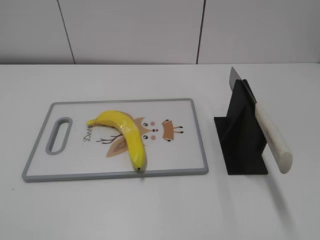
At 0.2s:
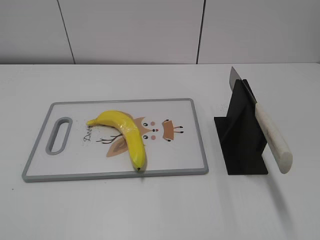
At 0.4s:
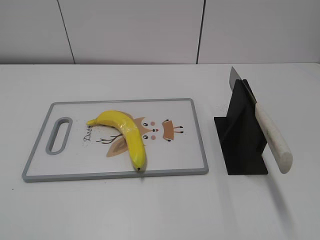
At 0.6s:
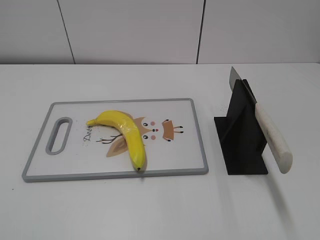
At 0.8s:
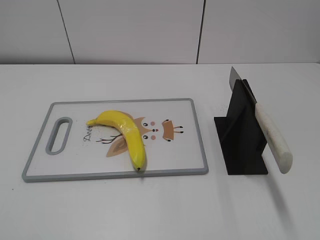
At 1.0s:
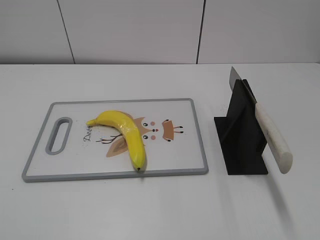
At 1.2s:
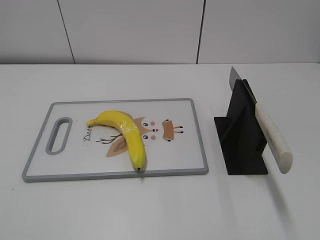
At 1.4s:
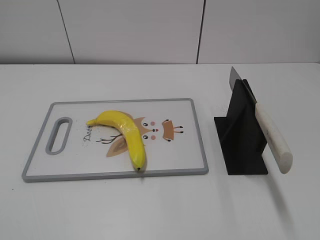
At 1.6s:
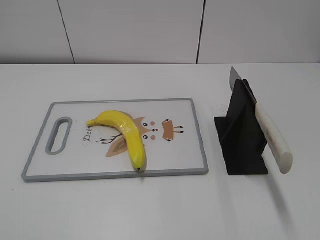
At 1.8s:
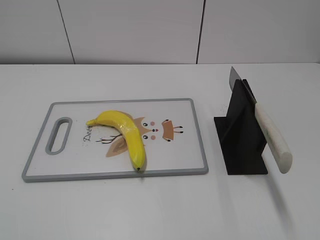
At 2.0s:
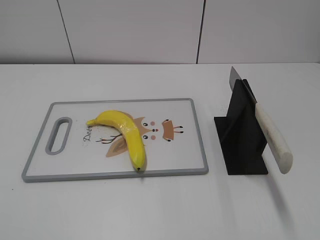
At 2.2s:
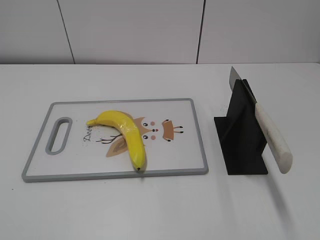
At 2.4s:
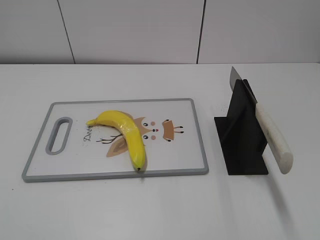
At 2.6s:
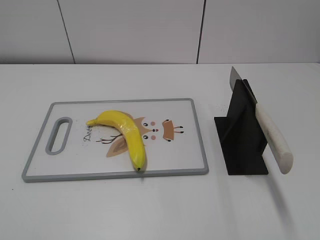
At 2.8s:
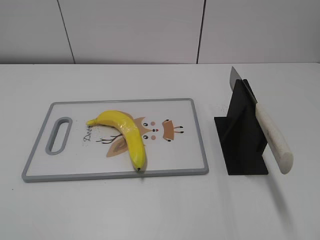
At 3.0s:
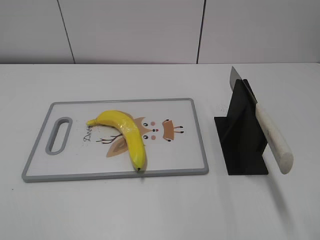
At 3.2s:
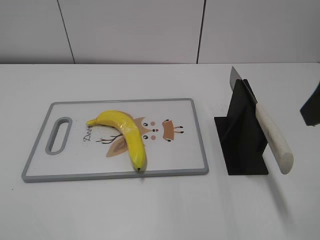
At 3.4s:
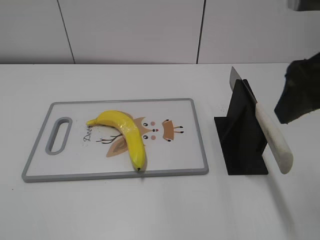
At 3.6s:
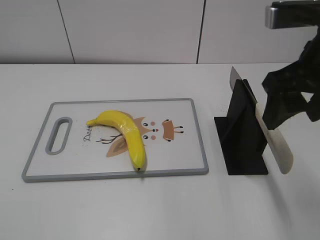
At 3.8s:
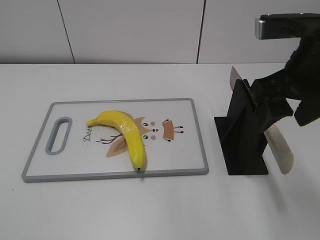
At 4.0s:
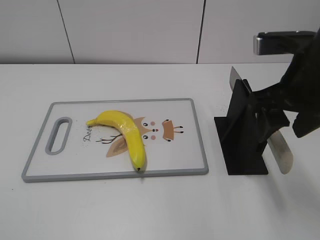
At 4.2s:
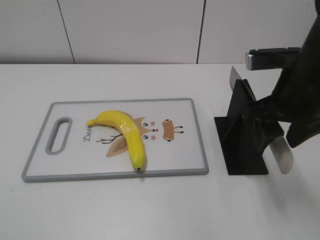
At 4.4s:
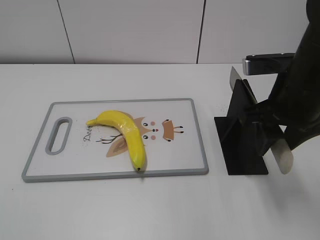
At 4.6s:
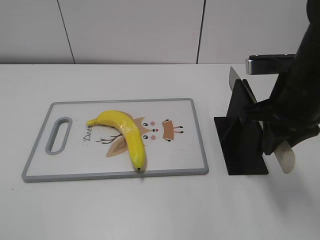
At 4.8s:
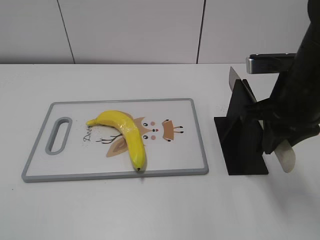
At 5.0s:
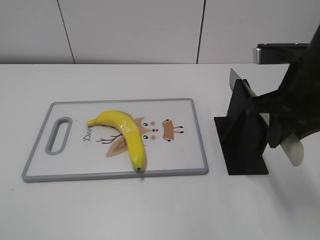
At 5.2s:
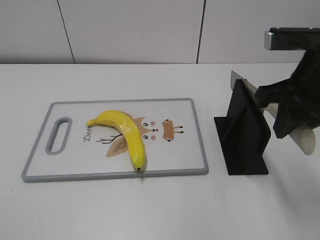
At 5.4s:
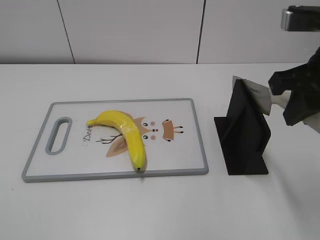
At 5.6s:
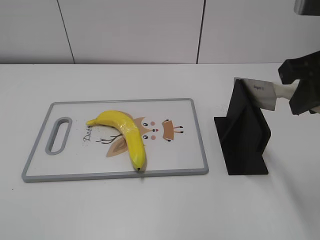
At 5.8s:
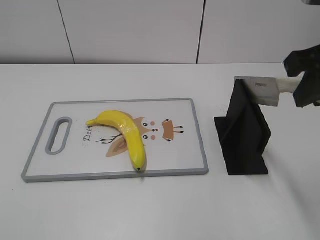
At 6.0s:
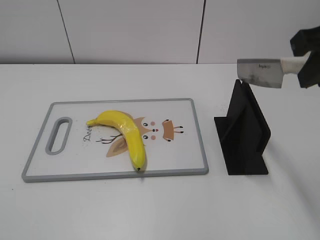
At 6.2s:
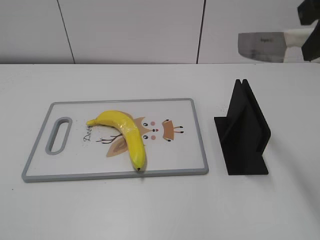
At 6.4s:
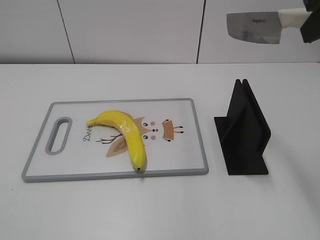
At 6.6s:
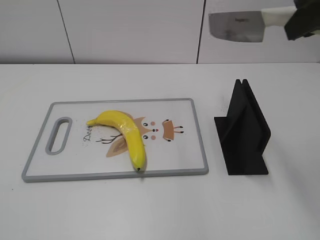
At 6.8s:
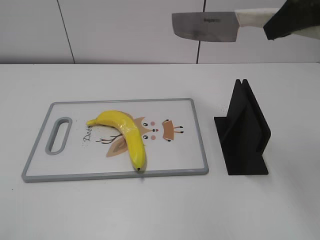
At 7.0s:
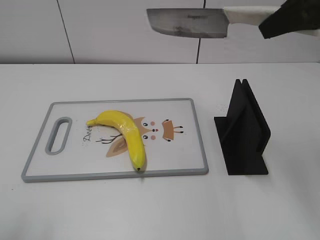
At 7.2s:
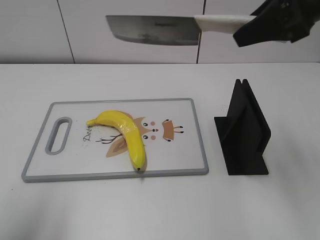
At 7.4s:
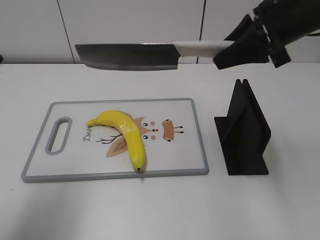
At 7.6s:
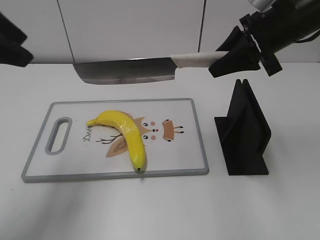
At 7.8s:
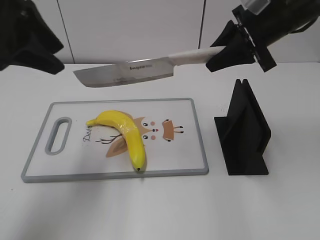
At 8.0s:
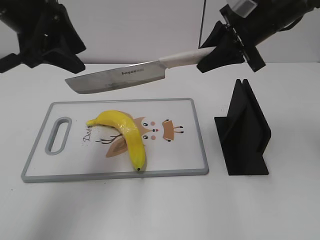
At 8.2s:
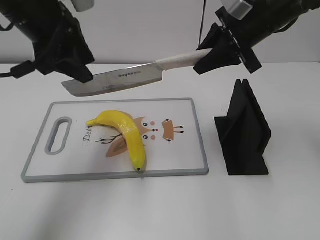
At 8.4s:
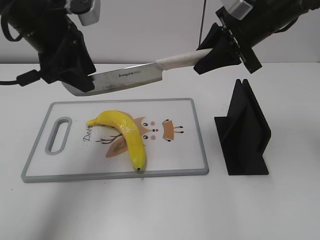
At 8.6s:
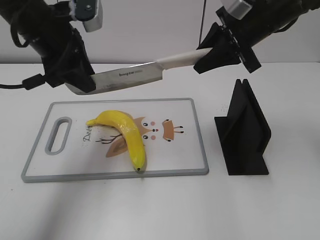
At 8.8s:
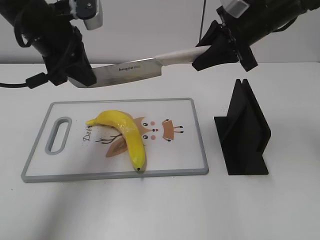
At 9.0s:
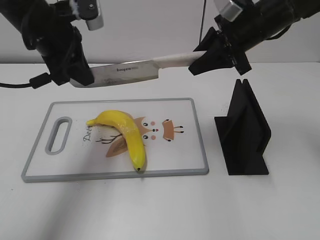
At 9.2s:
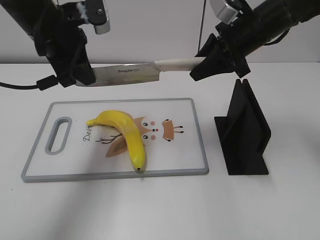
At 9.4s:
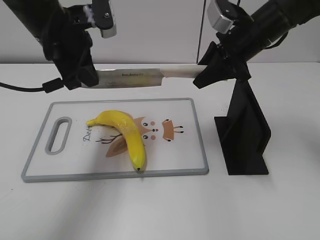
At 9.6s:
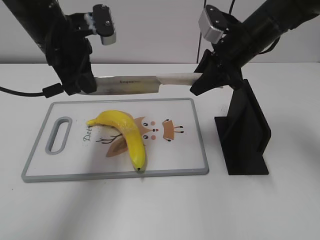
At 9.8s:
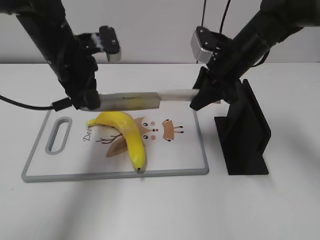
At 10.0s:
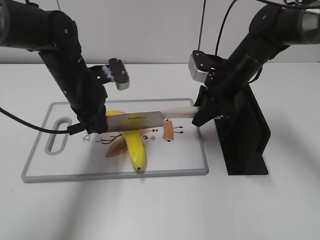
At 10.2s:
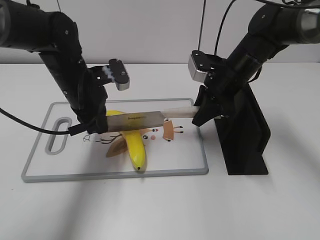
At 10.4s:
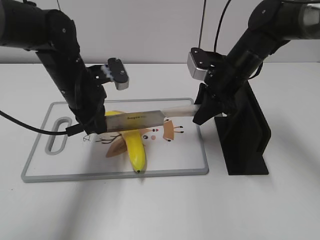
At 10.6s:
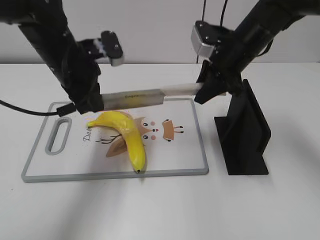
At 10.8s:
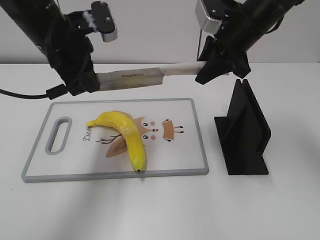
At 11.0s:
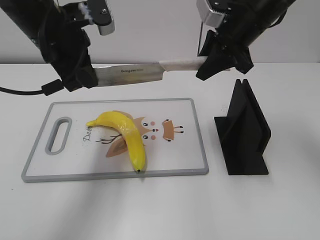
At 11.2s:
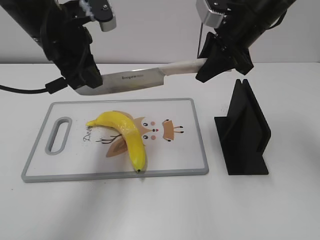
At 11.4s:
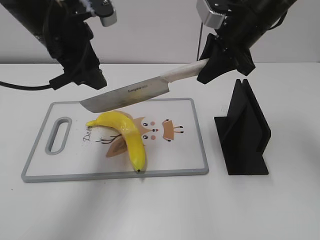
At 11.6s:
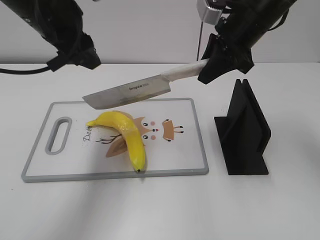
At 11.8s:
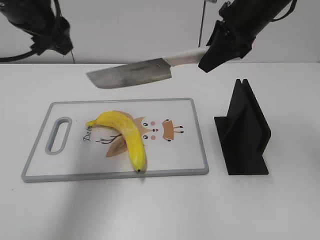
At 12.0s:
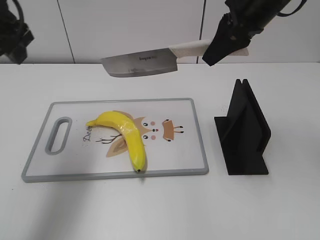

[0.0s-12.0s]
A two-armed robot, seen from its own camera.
Task of the whole recording: cut plastic banana.
Step, 0.0s to 5.4s: Grab the knife handle with your right hand.
Step, 5.8s to 10.8s: Lift the knife with your right hand.
3.0s to 4.4s: The right gripper travels downward, forward and to the left by some 15 cm, and closes up.
4.4s to 6.0s: The right gripper goes roughly 10 cm upward, and closes.
6.0s to 7.6s: The right gripper shifts some 15 cm forward and downward, while the left gripper travels forward by approximately 25 cm.
7.6s to 9.0s: The right gripper ends up approximately 5 cm from where it was; the left gripper shifts some 15 cm forward, downward and to the right, and closes.
9.0s to 10.4s: The grippers both shift downward by approximately 10 cm.
10.4s to 12.0s: The right gripper goes approximately 15 cm upward; the left gripper goes roughly 20 cm upward and to the left, and opens up.

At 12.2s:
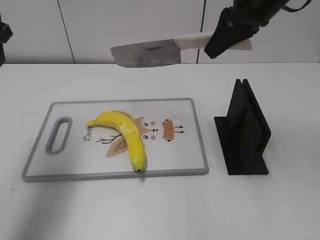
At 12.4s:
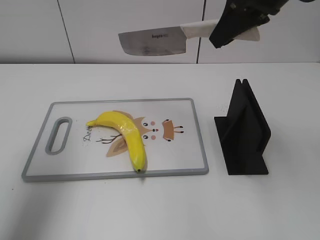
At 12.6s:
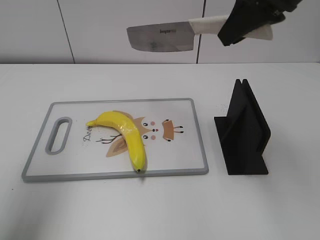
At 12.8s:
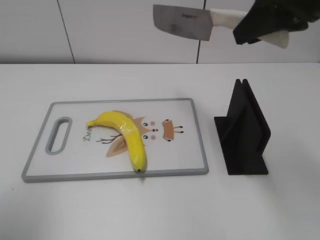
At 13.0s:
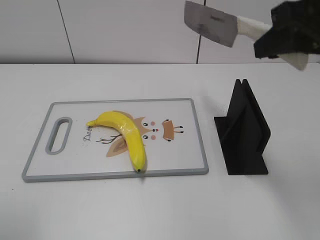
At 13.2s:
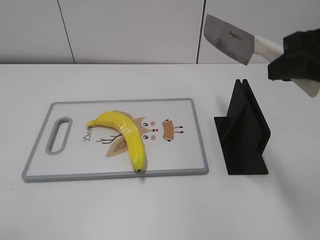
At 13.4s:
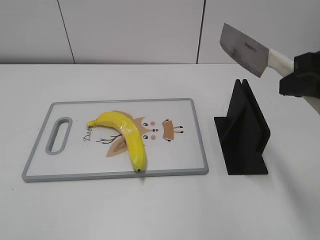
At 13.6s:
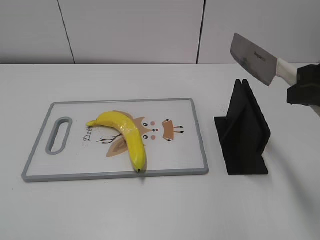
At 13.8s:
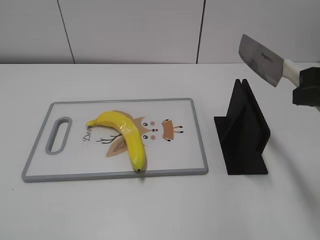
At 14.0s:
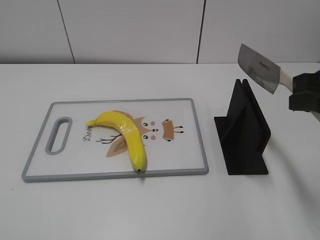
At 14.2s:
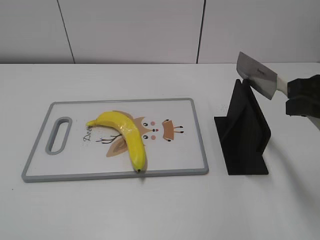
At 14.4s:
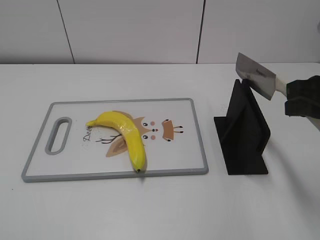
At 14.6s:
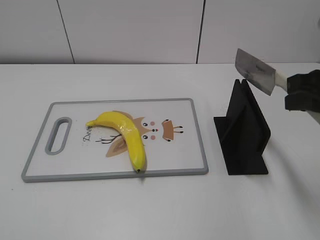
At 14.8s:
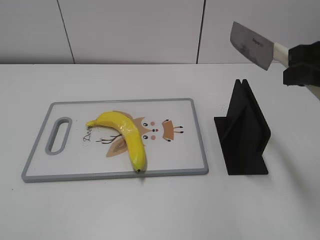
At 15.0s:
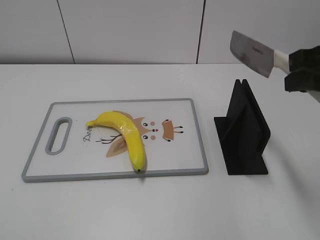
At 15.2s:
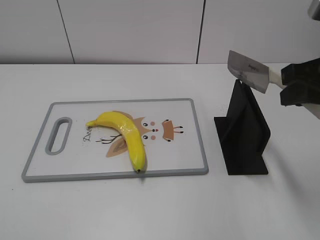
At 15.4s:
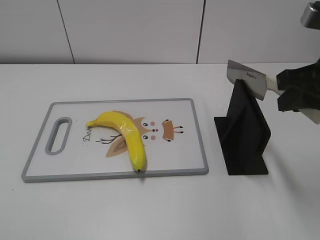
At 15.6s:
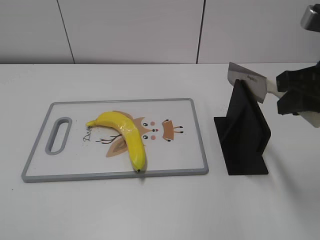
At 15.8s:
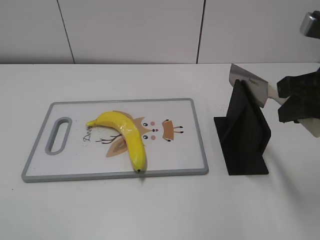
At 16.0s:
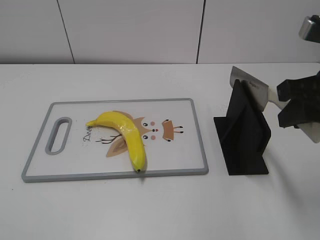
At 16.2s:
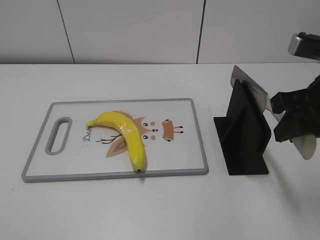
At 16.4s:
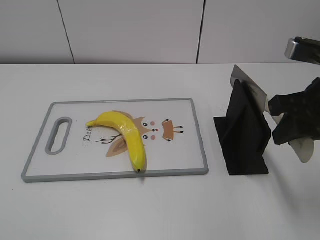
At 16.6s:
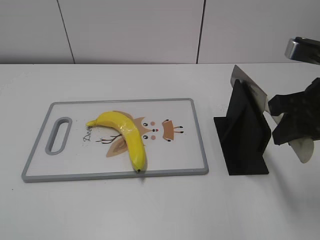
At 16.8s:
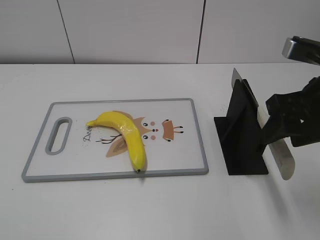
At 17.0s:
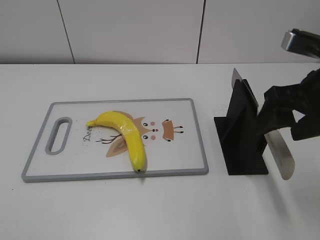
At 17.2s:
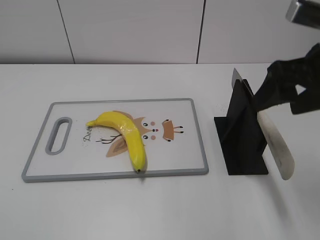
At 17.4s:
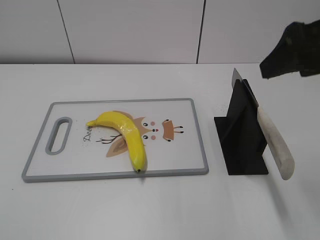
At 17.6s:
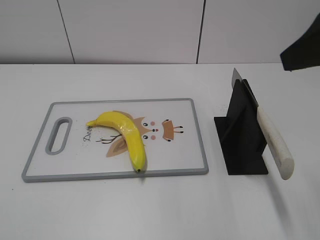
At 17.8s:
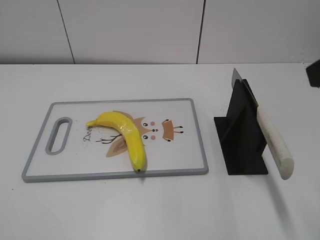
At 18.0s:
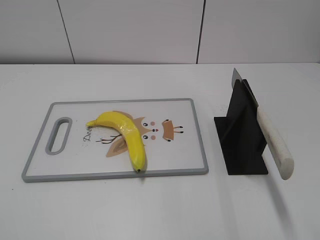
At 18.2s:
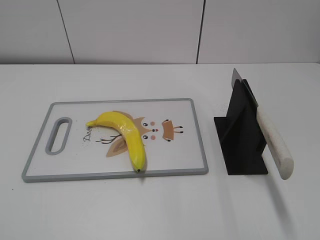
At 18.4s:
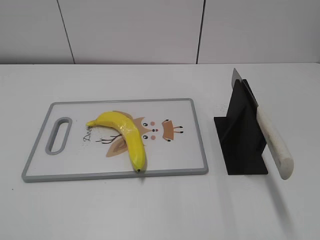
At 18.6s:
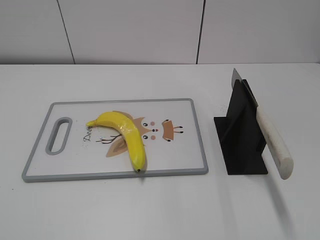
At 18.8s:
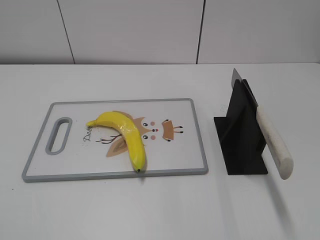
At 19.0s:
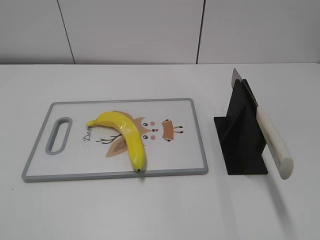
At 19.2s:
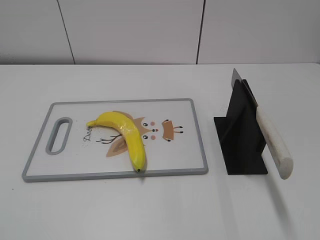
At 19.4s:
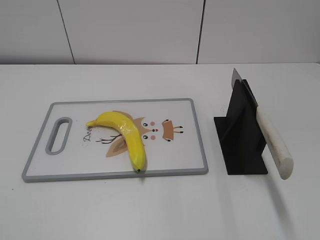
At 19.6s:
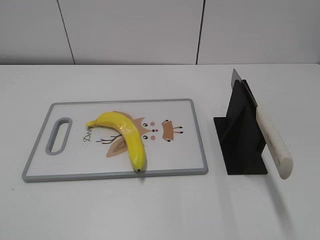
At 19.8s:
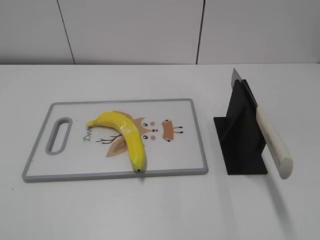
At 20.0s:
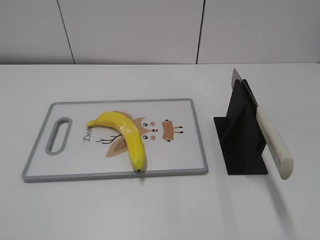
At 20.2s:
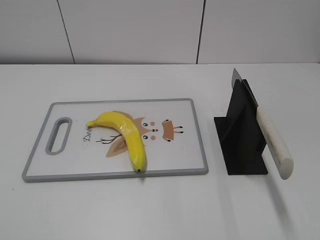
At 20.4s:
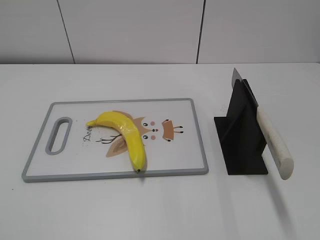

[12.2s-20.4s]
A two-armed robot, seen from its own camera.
Task of the whole recording: cut plastic banana.
Step, 13.0s to 13.6s: Lift the knife with your right hand.
Step, 13.8s to 20.4s: Place the knife on the storage rack with your right hand.
12.2s to 13.8s: The right gripper is displaced backward and to the right by approximately 20 cm. Meanwhile the left gripper travels backward by approximately 30 cm.
13.8s to 15.4s: There are only small adjustments of the grippers.
15.4s to 17.2s: The right gripper opens its fingers.
17.2s to 18.8s: The right gripper shifts approximately 20 cm backward.

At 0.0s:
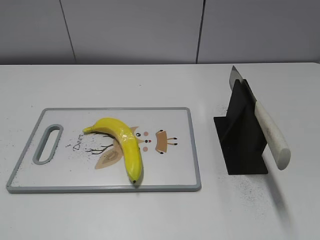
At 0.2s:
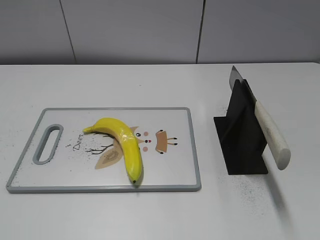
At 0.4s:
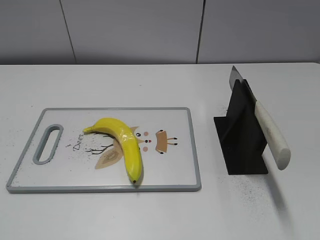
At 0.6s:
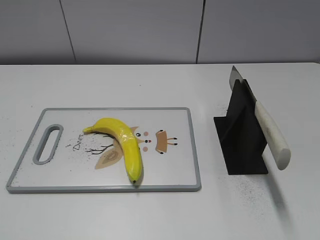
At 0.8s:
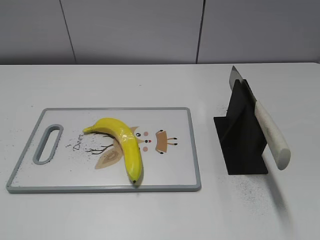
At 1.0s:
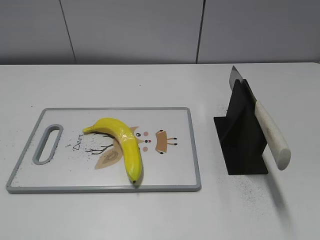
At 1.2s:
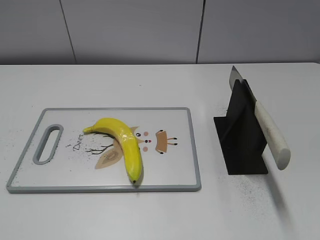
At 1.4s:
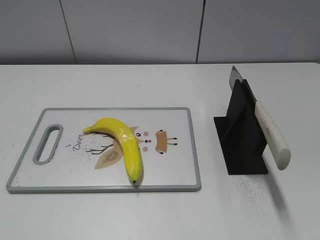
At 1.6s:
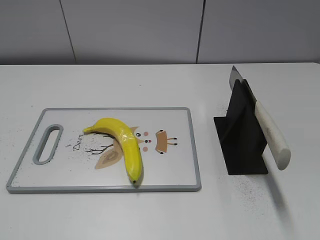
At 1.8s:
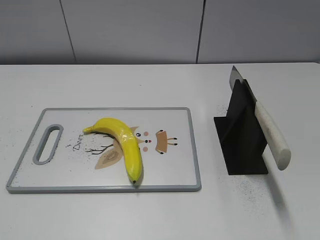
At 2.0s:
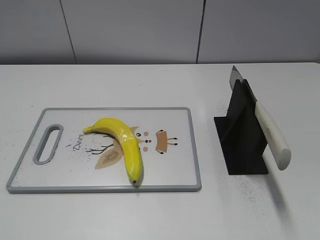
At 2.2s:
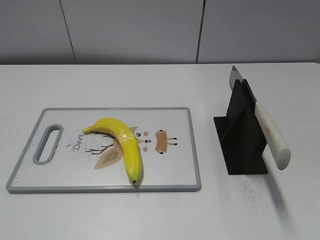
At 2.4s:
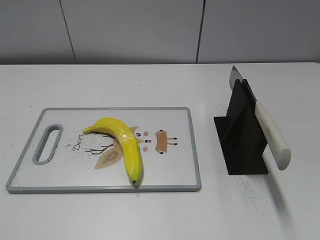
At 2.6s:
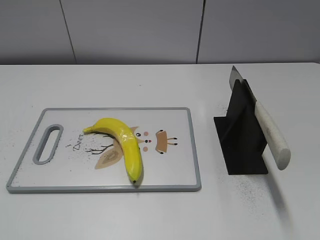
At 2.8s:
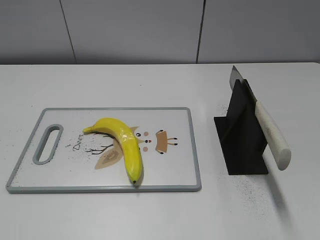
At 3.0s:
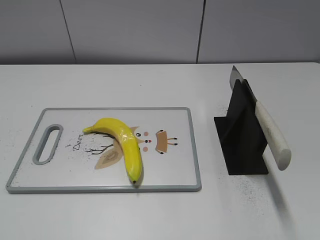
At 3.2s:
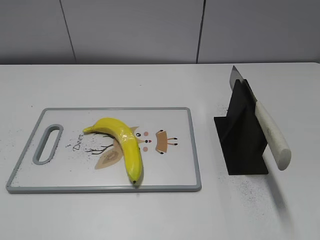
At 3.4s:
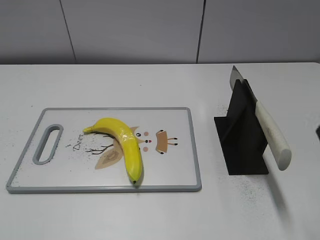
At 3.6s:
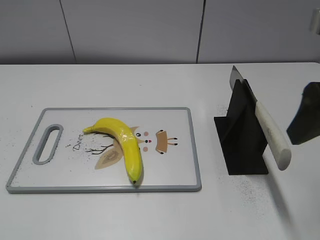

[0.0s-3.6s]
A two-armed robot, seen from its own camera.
Task of the whole recording: cut plastic banana.
1.8s to 3.6s: The right gripper goes roughly 20 cm forward and to the left.
